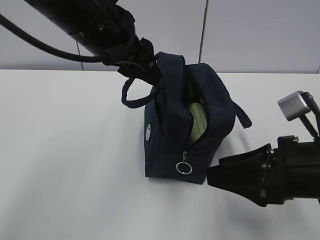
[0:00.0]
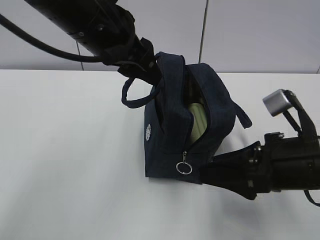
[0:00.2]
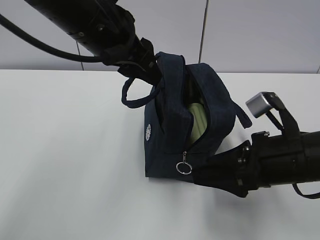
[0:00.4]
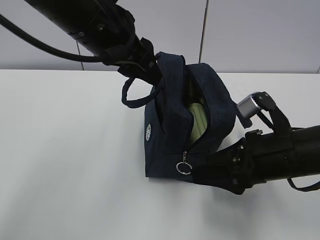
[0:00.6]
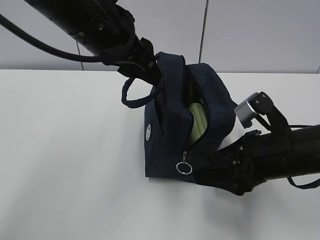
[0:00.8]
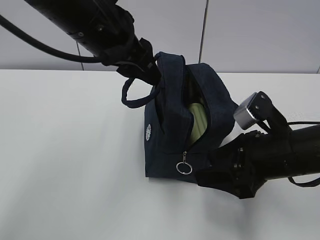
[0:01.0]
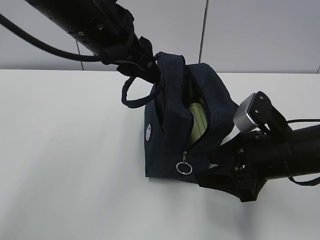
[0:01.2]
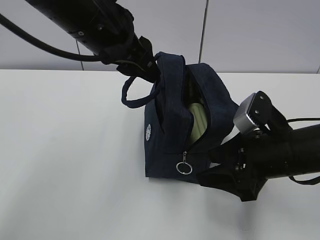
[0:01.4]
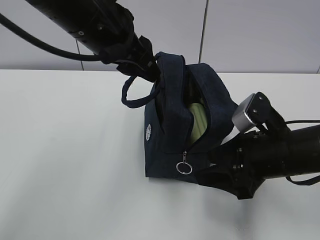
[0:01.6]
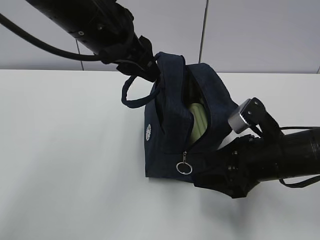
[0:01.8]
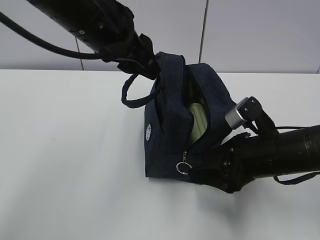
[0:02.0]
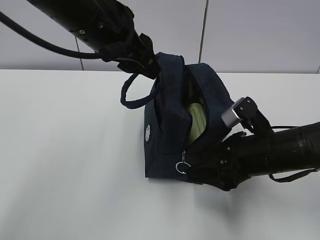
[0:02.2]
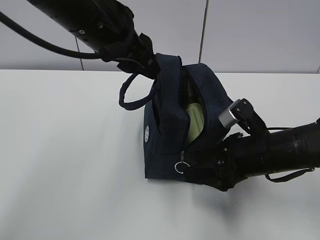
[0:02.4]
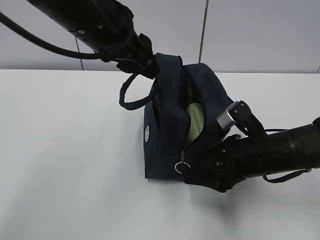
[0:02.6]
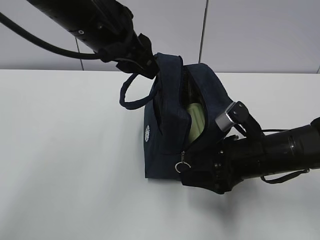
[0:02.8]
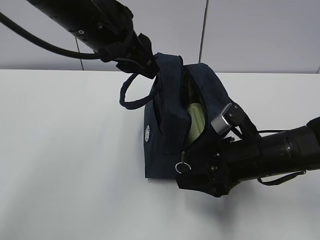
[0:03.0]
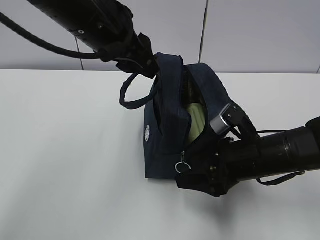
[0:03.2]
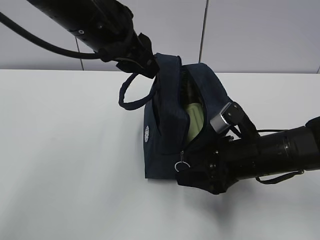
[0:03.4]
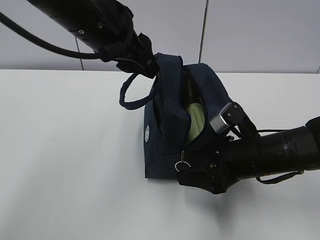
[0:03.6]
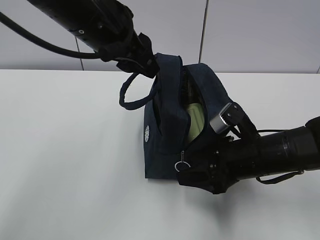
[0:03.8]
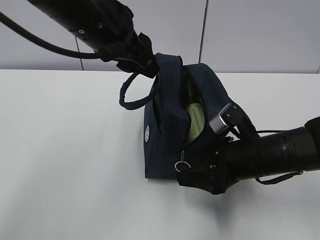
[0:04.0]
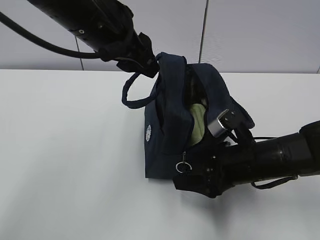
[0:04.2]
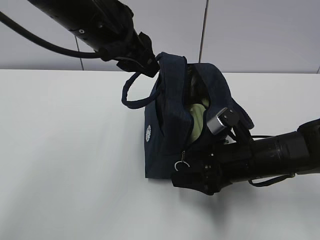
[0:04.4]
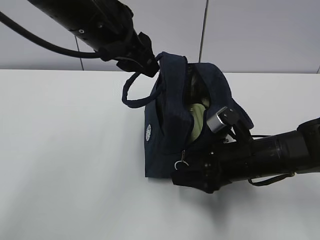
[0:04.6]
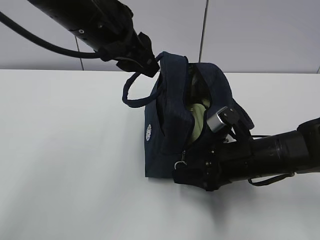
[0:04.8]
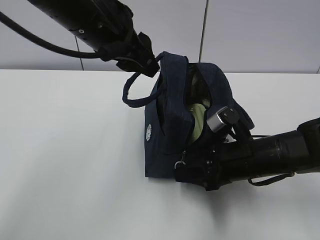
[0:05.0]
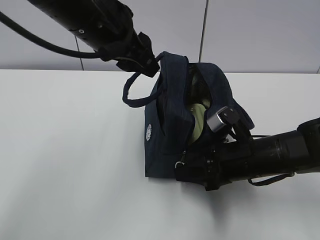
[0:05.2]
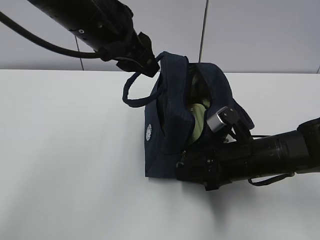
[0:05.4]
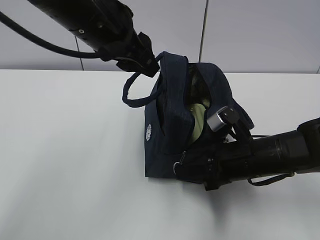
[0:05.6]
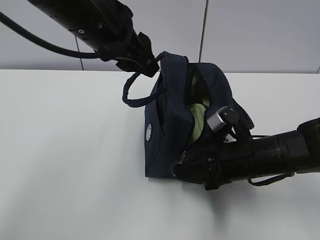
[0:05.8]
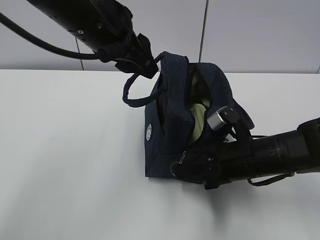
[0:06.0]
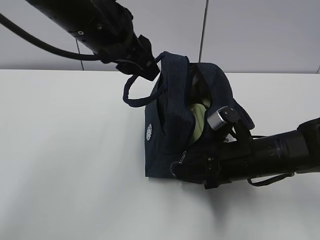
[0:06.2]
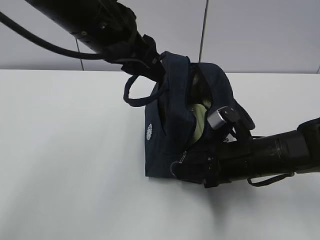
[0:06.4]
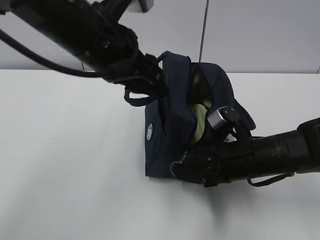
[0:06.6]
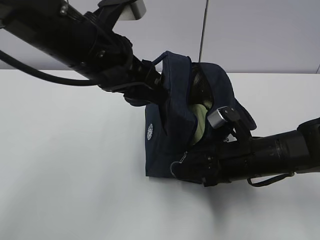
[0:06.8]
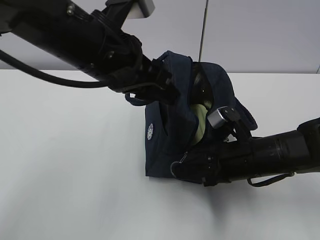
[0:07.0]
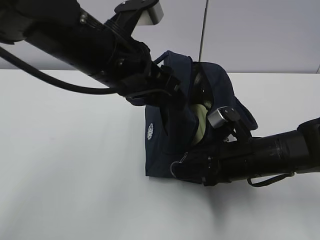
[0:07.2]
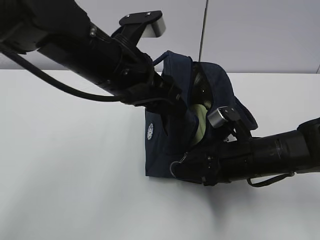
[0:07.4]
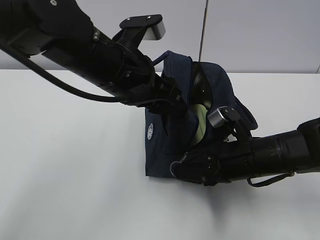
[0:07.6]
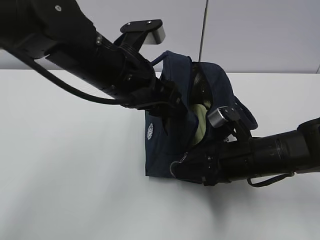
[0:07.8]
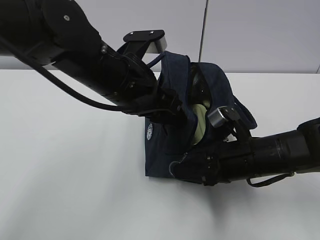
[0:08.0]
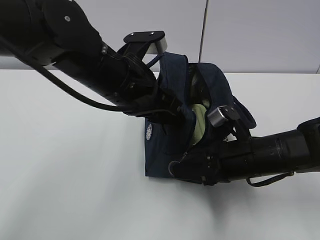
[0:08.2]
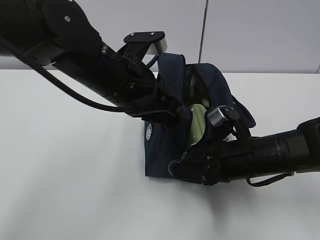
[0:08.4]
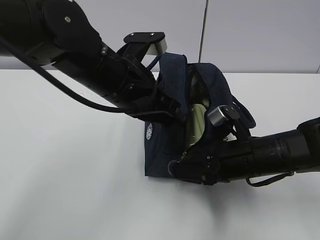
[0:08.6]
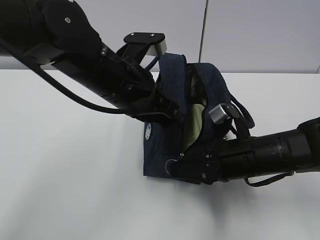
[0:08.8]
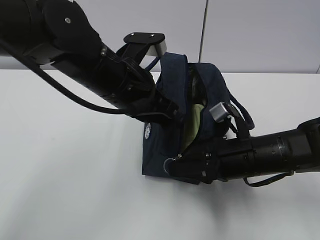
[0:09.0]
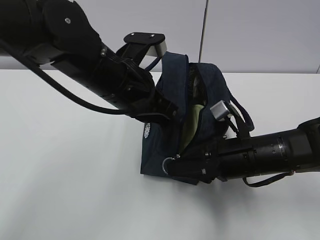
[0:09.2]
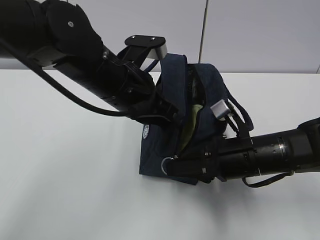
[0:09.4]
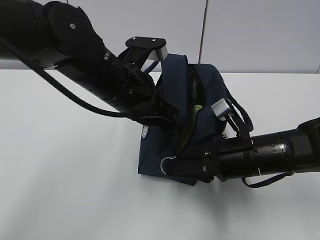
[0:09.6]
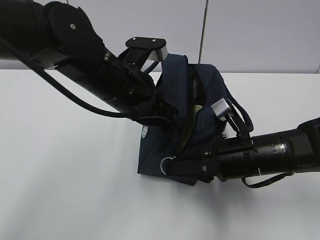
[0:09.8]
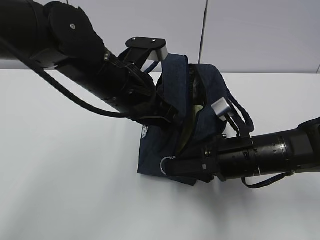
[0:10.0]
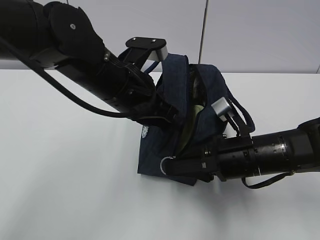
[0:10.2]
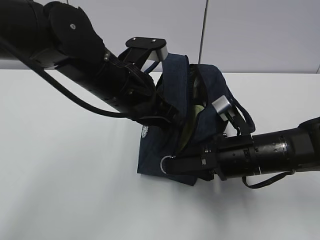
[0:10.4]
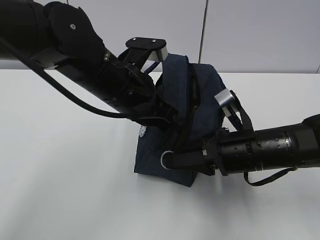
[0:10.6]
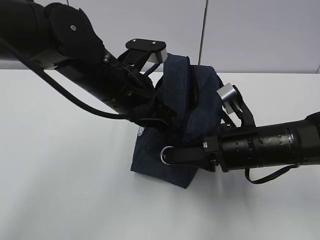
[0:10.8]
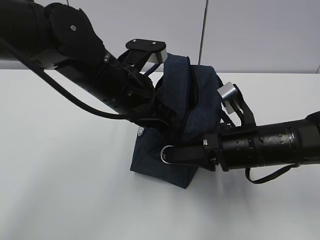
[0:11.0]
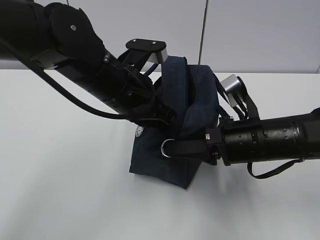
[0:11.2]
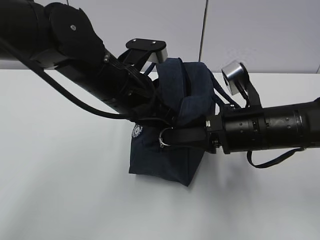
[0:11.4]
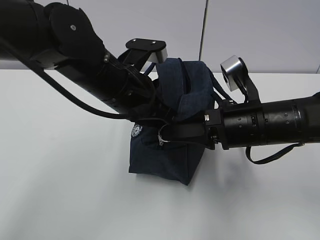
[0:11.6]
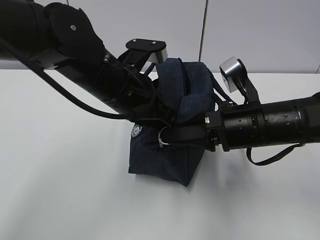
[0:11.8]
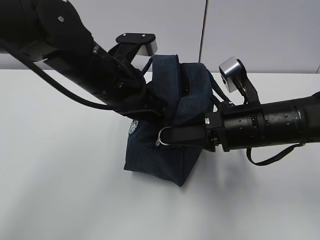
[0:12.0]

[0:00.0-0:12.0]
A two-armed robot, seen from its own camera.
Step, 0:00.0 to 0:10.8: Grab the lunch bag with your left hand.
0:00.0 to 0:01.6: The right gripper shifts roughly 5 cm forward.
0:01.6 to 0:03.0: The grippers move only a little.
0:03.0 to 0:04.4: The grippers make only small movements.
0:04.4 to 0:06.0: The right gripper closes its fingers.
0:06.0 to 0:07.6: The left gripper shifts roughly 5 cm downward.
0:07.6 to 0:09.0: The left gripper closes up.
0:09.0 to 0:10.4: The grippers move only a little.
0:10.4 to 0:12.0: The right gripper travels upward by approximately 5 cm.

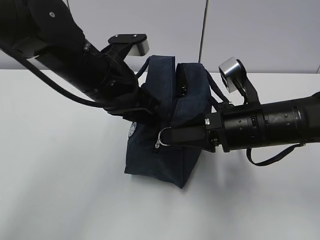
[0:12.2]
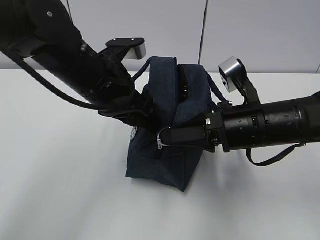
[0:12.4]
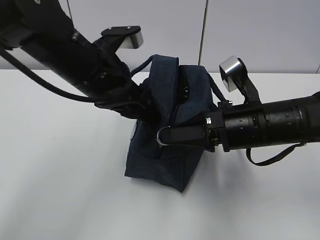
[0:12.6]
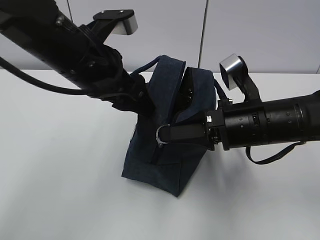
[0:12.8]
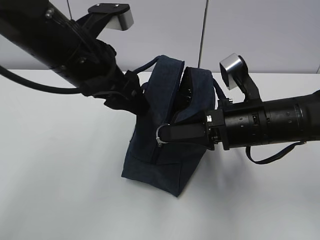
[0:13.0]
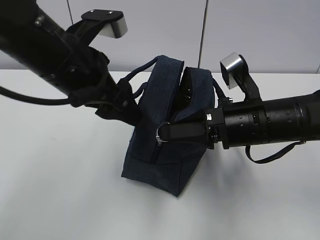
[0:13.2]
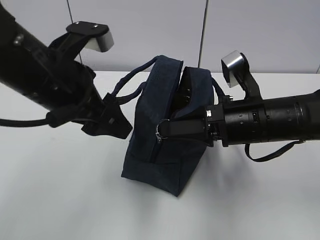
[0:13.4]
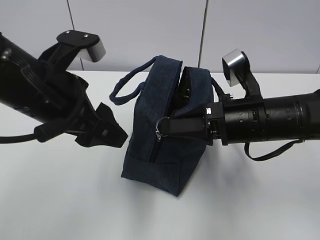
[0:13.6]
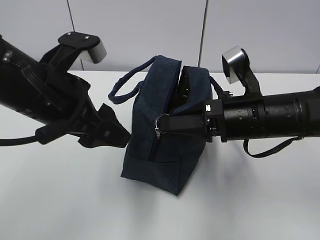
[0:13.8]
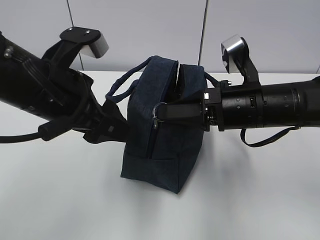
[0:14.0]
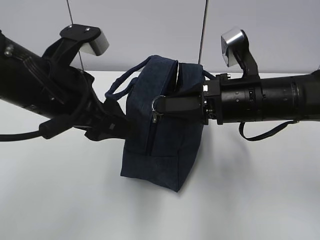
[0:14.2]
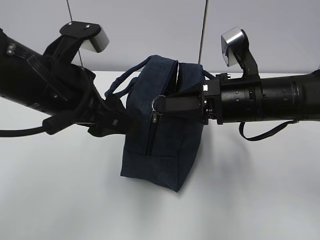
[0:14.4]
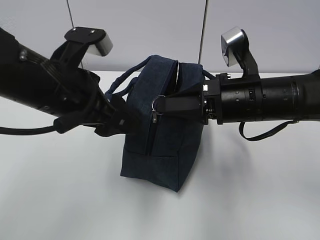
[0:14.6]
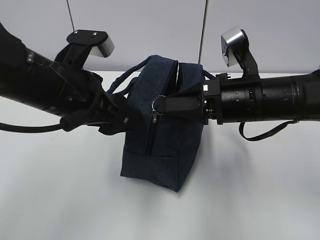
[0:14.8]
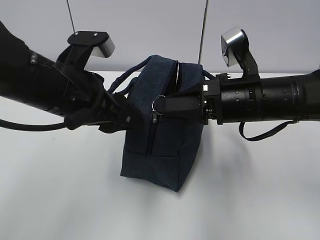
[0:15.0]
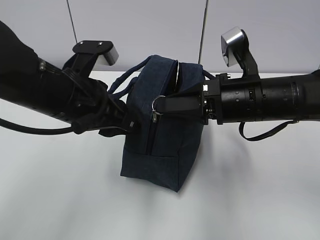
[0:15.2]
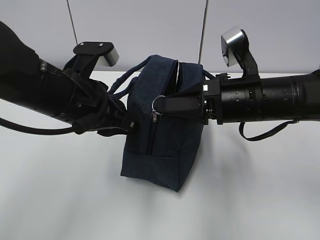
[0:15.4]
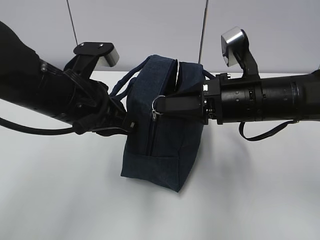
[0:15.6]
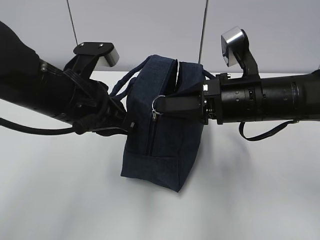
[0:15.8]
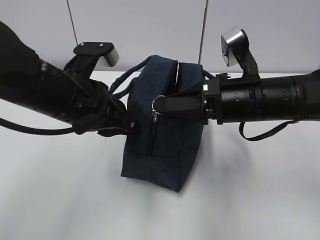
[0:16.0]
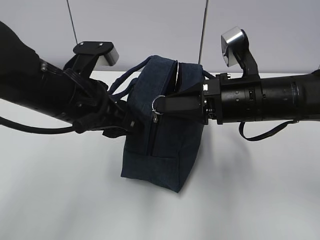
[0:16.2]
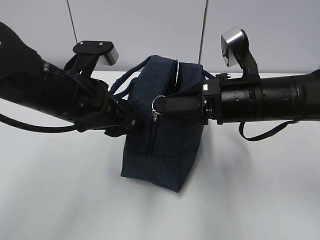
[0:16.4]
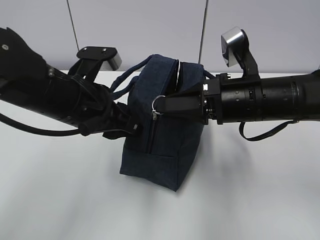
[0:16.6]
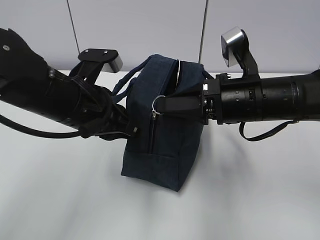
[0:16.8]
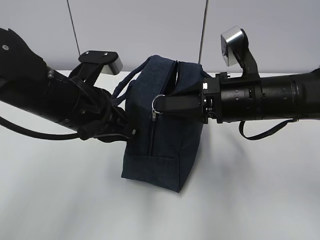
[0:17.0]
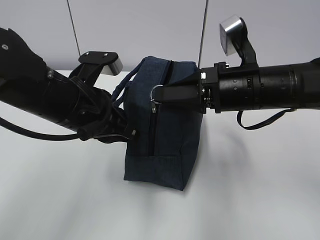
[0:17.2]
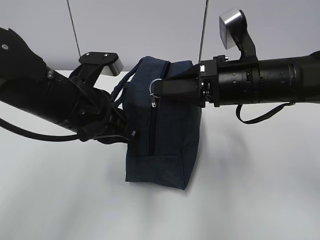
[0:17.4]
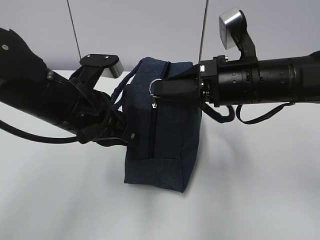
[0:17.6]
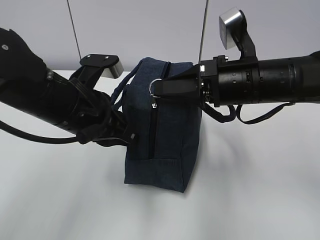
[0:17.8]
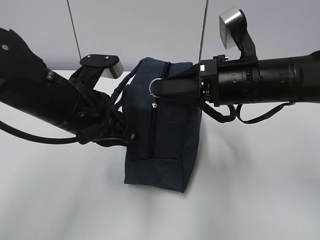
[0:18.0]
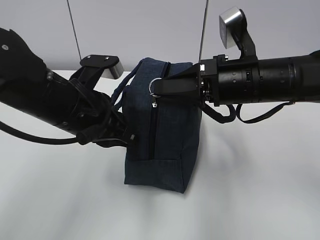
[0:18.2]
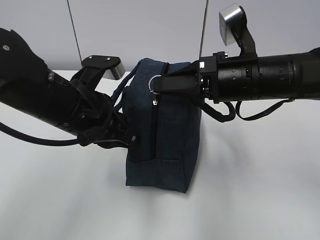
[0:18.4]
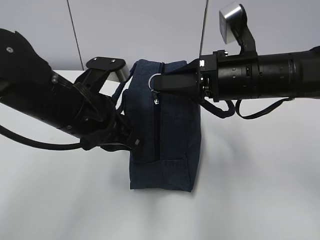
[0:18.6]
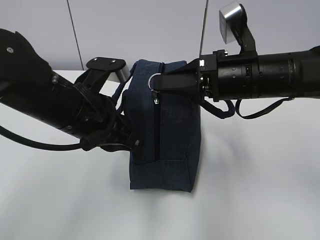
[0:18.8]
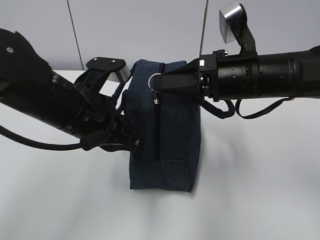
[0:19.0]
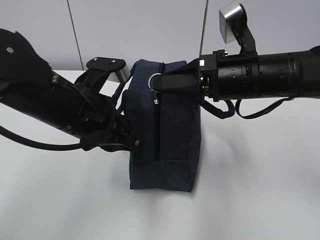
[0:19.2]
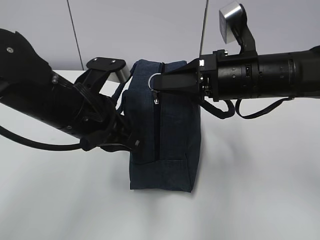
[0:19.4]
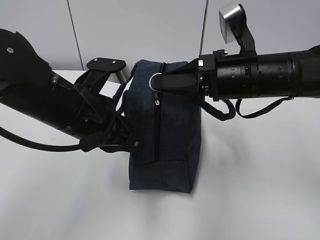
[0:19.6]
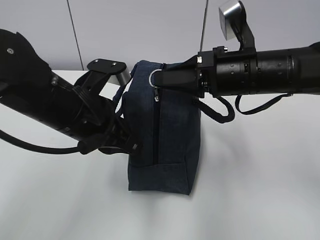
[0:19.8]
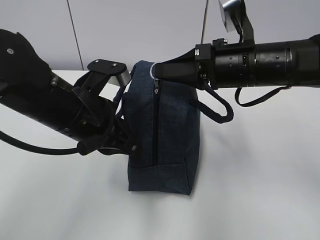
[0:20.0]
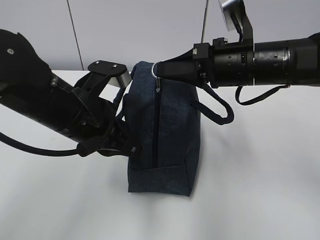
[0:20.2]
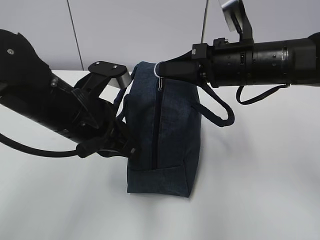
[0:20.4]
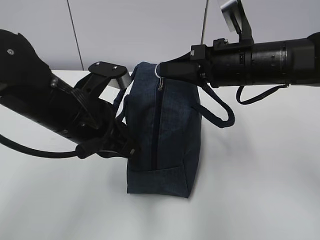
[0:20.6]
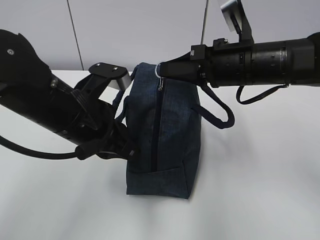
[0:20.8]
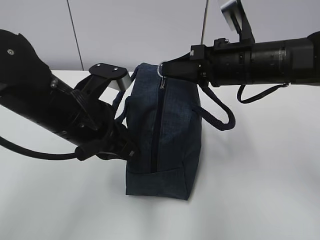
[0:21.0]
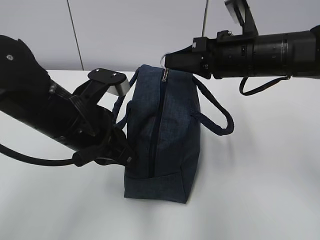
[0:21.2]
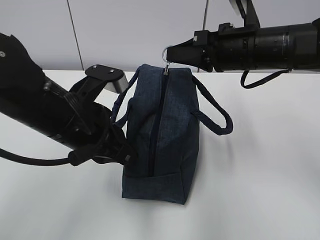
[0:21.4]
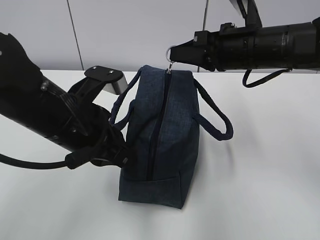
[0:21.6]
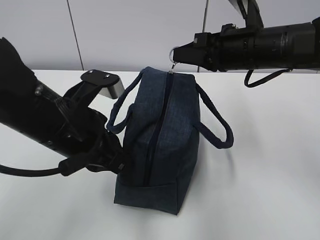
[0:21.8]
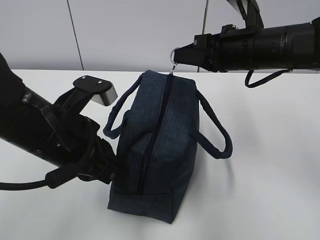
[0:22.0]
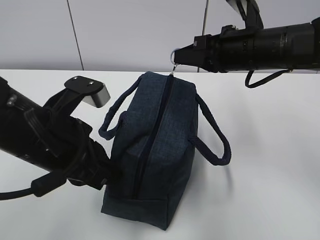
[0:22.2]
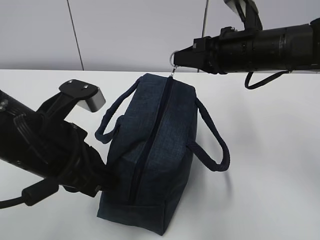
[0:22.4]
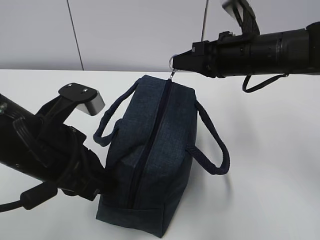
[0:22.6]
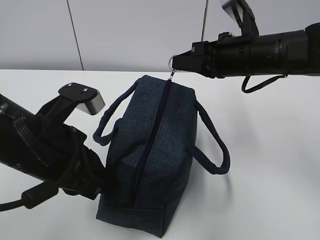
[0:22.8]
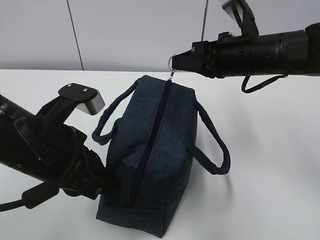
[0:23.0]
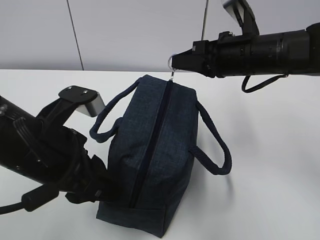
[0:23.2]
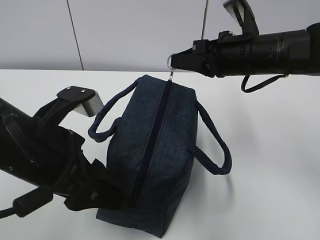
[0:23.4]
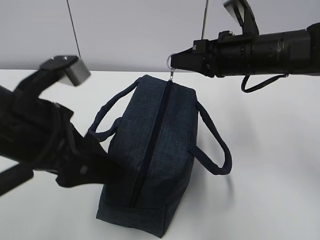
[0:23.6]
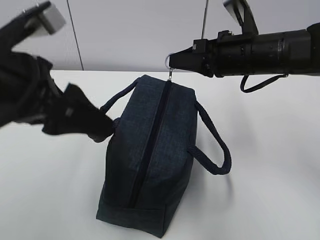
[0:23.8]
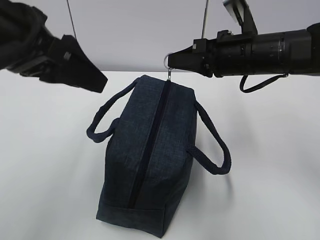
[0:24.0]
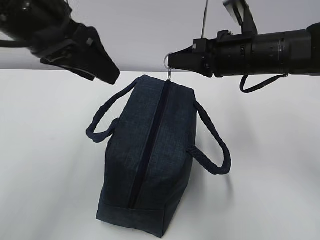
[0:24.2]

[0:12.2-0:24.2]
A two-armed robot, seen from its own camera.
Step, 0:12.2 to 0:16.8: Pull the zipper with your right hand.
Step, 0:17.0 to 0:18.8: Grab the lunch bag with your left hand.
0:12.2 to 0:13.8: The left gripper moves backward and to the left, about 10 cm, and opens its fingers.
0:13.8 to 0:15.2: The left gripper closes up.
0:15.2 to 0:16.6: The left gripper closes and opens again.
0:16.6 to 0:18.2: The left gripper closes.
0:18.2 to 0:19.8: Both grippers stay about where they are.
0:19.8 to 0:21.2: There are only small adjustments of the grippers.
0:21.2 to 0:22.6: The left gripper changes place by some 5 cm.
0:22.6 to 0:24.2: The left gripper heads upward and forward, covering roughly 15 cm, and opens up.
